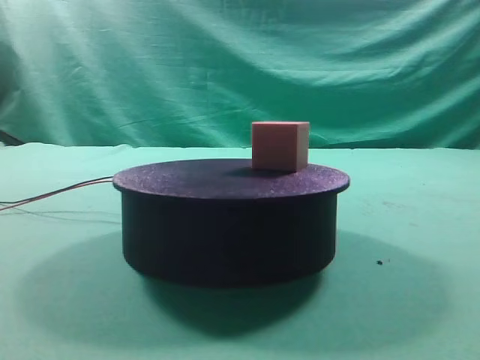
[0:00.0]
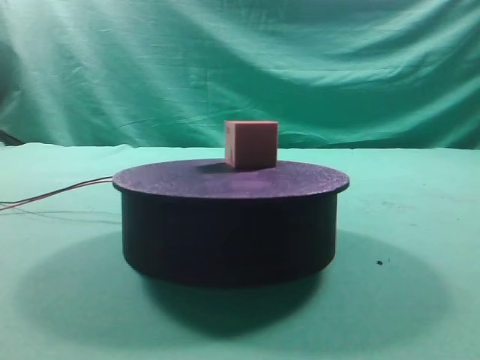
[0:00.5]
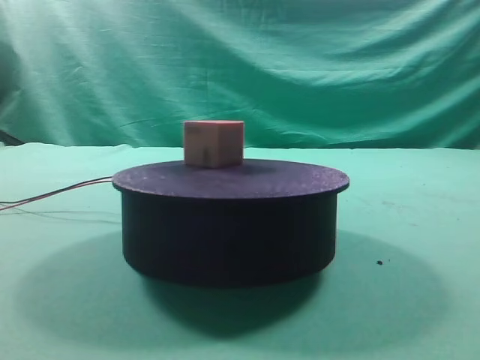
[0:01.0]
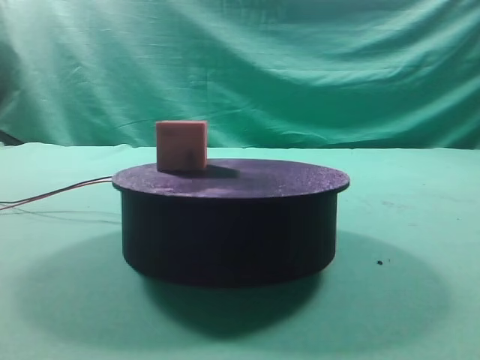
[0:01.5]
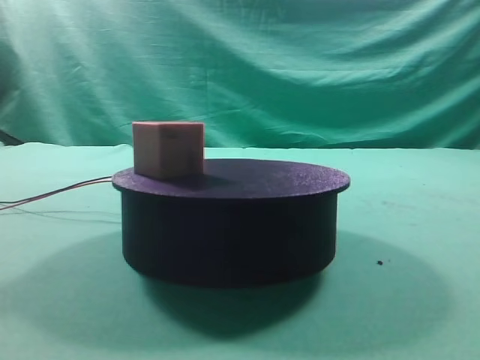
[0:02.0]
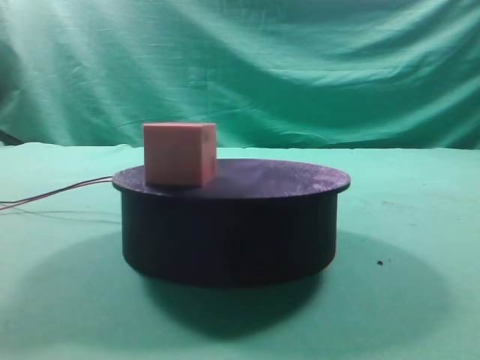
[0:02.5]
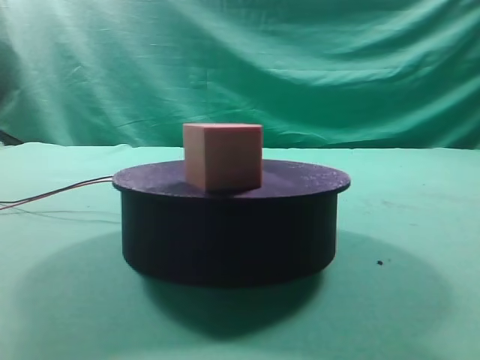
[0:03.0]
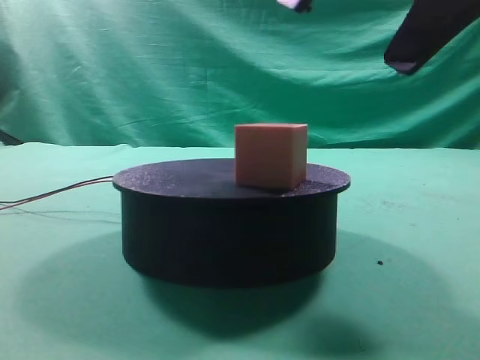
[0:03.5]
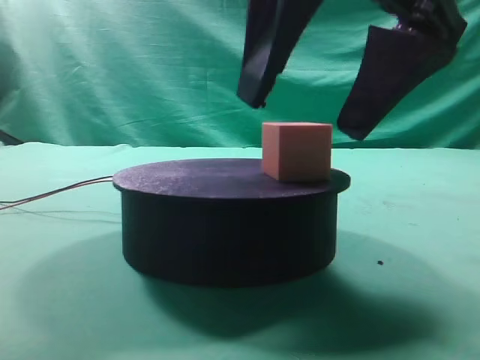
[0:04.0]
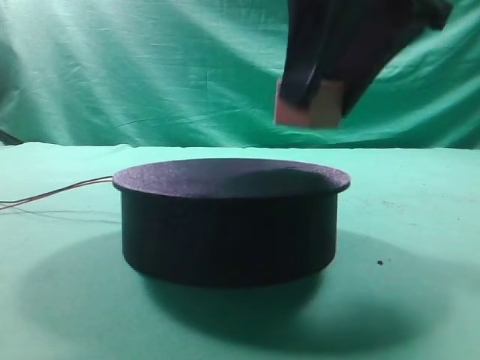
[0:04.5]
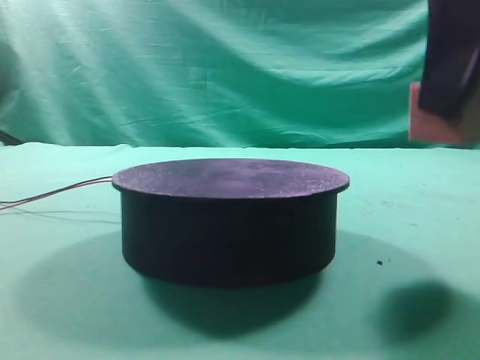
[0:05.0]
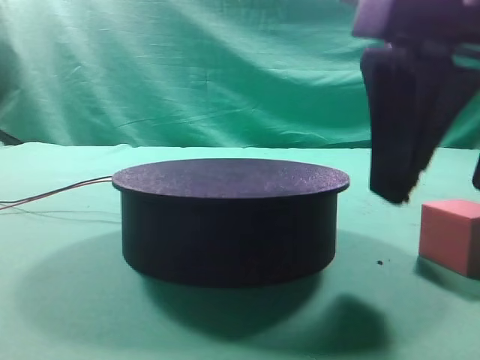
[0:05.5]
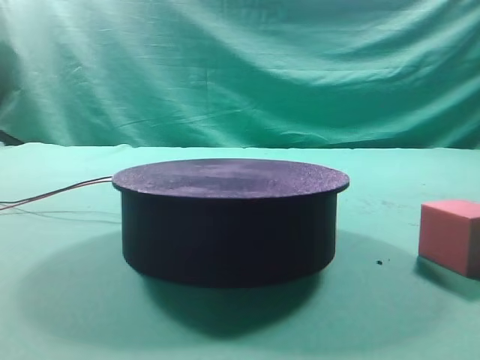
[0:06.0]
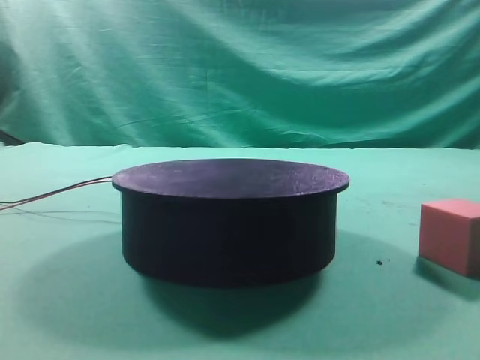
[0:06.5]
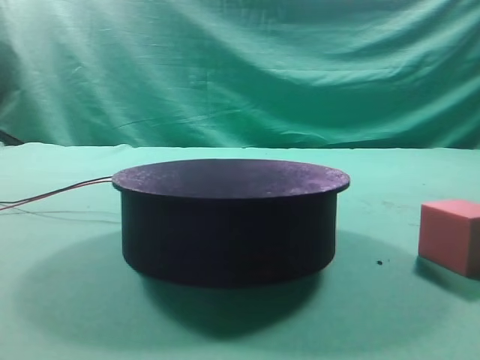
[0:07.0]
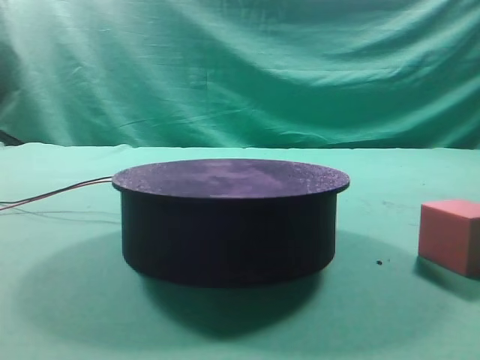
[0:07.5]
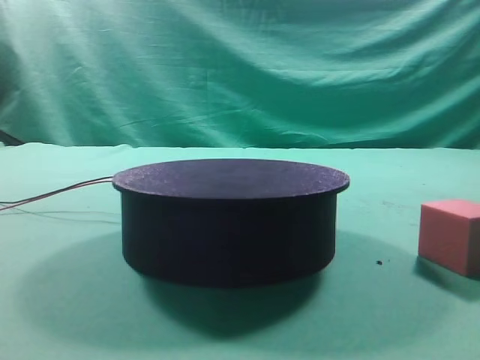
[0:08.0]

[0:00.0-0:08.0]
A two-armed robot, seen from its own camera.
Task of the whole recording: grasp the rotating cube-shaped block on the turntable and place it on the table.
Step, 0:00.0 to 0:04.5: Grasp the rotating cube-shaped block on the turntable.
Step, 0:05.0 to 0:05.5: Place the cube on the desk.

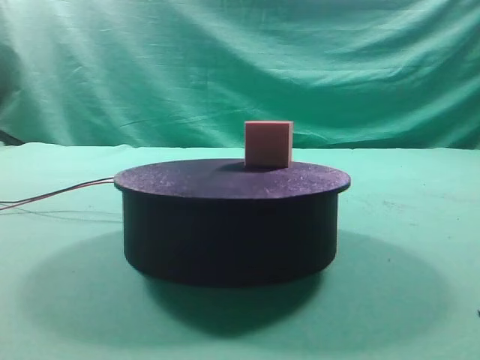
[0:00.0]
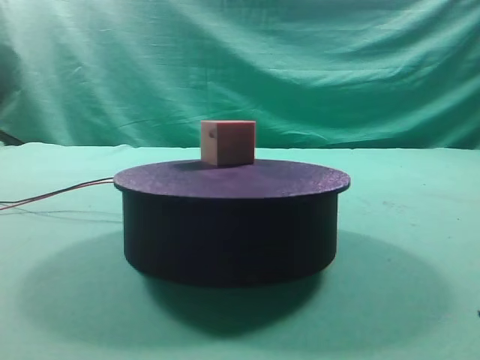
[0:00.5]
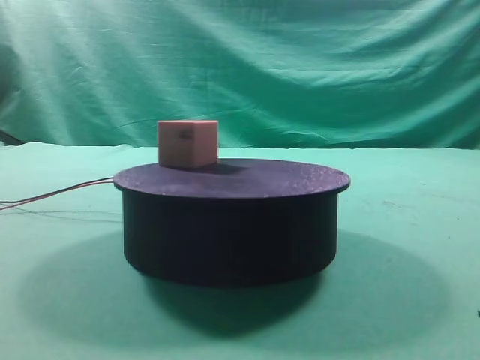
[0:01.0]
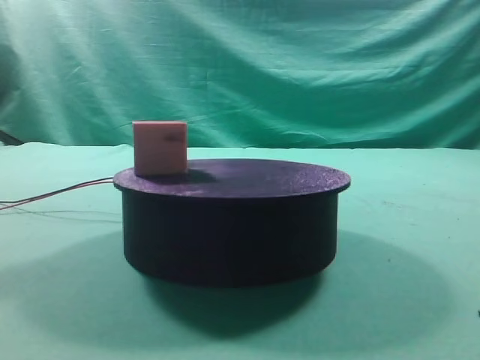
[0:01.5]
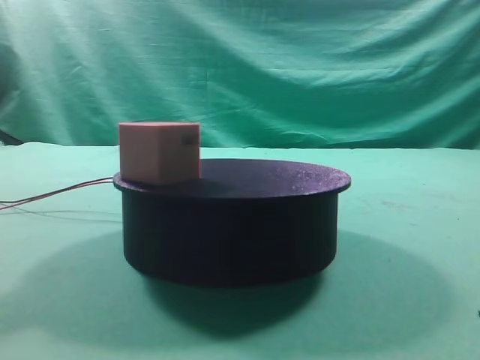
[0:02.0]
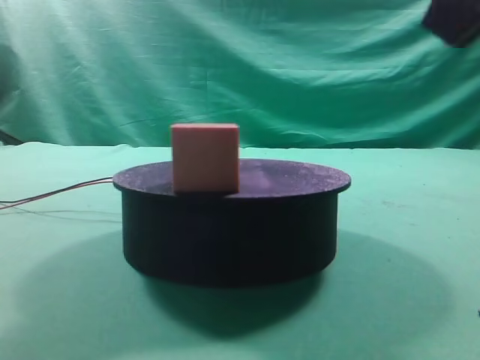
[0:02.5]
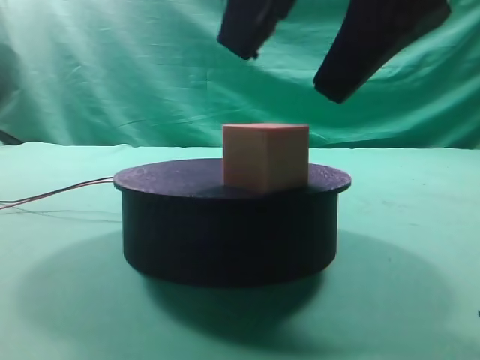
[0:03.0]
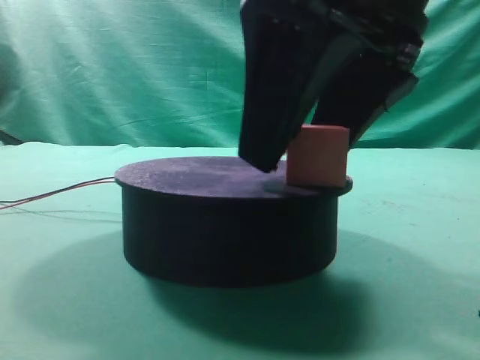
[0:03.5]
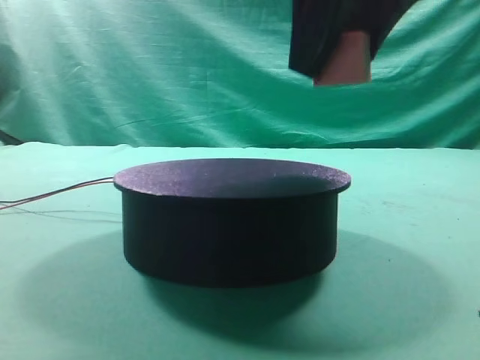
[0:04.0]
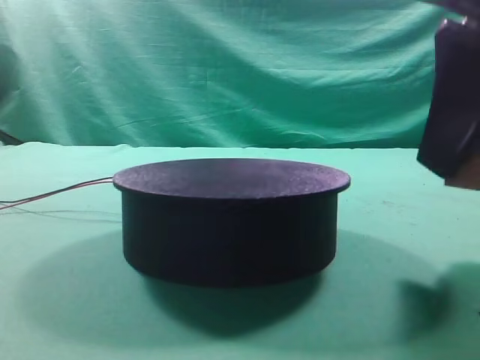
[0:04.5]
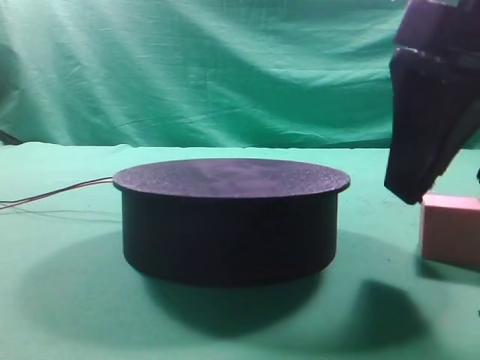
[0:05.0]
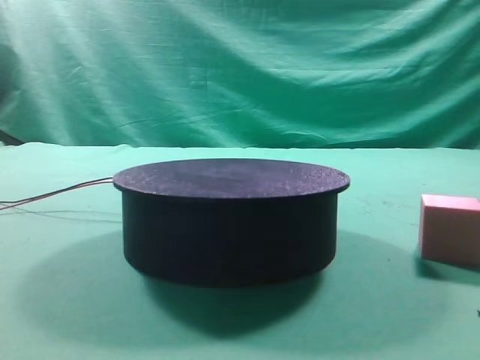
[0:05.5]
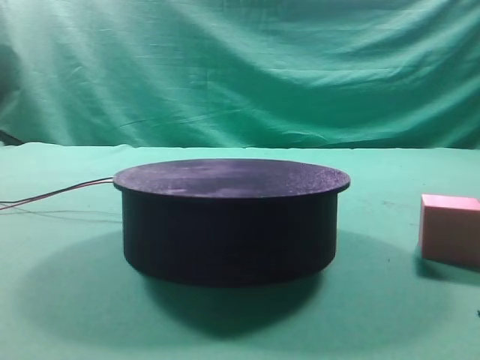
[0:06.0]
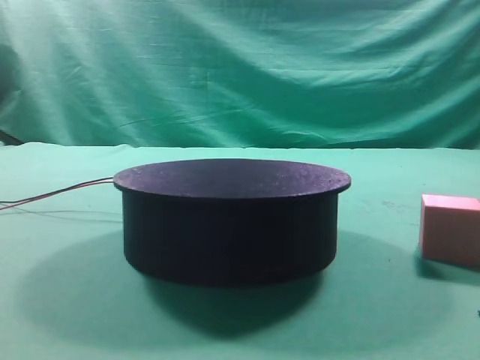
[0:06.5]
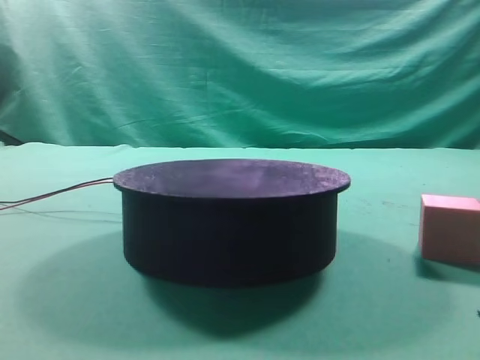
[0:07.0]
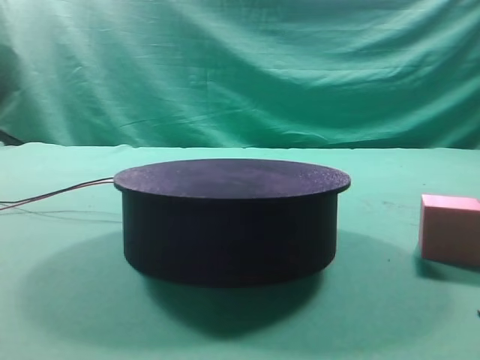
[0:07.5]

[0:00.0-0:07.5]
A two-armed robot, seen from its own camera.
Task of the whole recording: grasp the rotating cube-shaped block on the turntable and place it on the table.
Step, 0:00.0 to 0:03.5: Grasp the rotating cube-shaped block on the turntable.
Step, 0:04.0 to 0:05.0: Place the cube on the desk.
